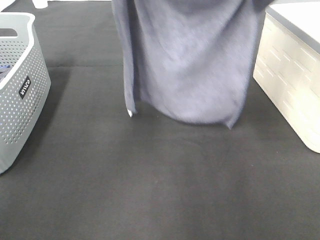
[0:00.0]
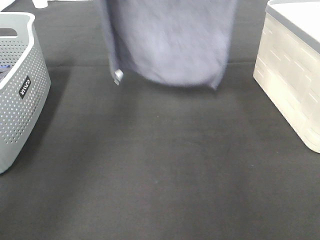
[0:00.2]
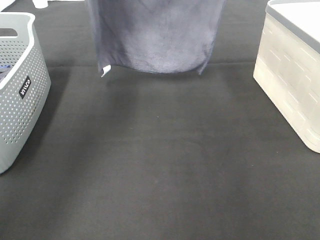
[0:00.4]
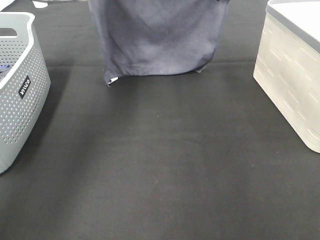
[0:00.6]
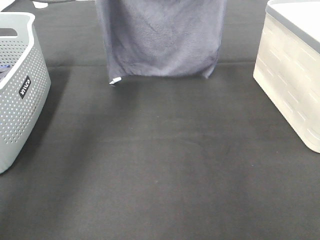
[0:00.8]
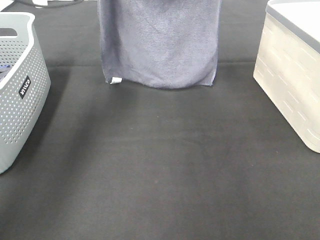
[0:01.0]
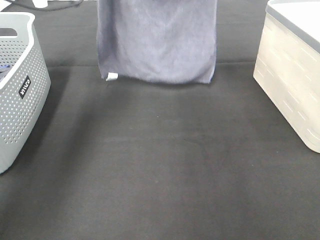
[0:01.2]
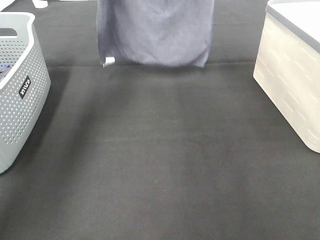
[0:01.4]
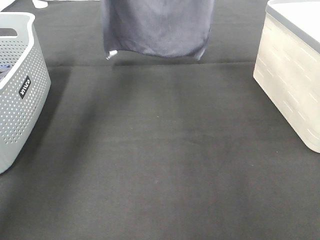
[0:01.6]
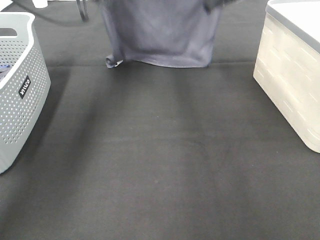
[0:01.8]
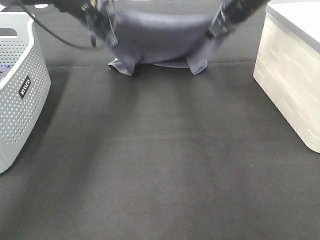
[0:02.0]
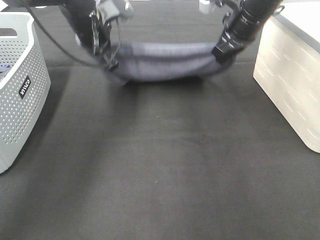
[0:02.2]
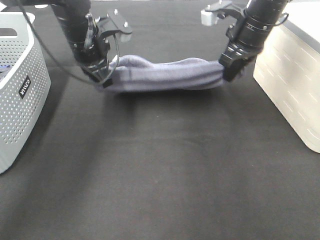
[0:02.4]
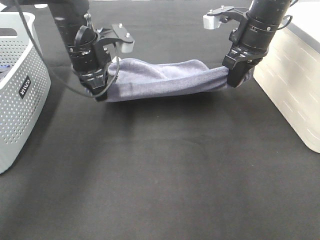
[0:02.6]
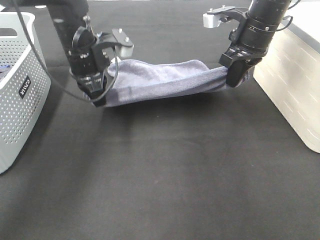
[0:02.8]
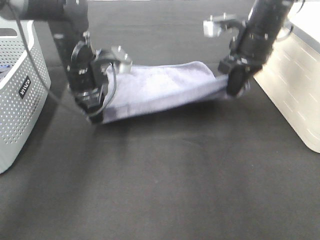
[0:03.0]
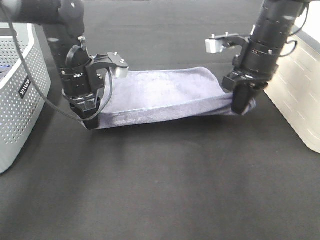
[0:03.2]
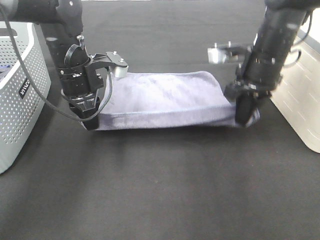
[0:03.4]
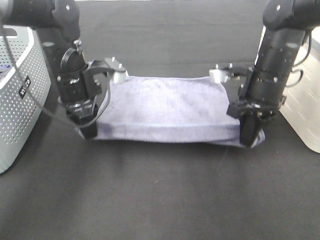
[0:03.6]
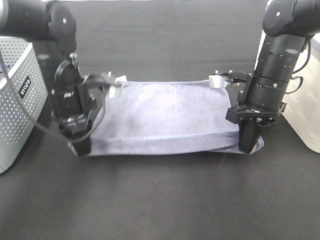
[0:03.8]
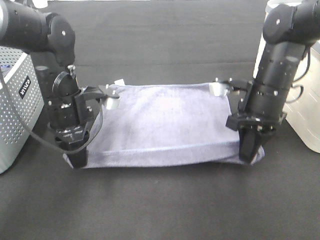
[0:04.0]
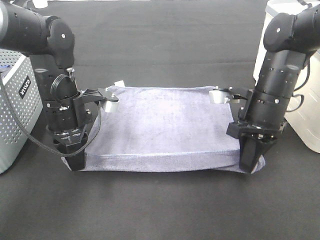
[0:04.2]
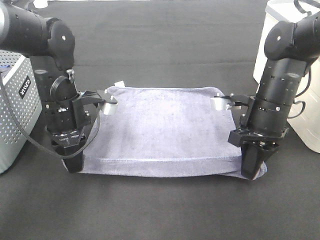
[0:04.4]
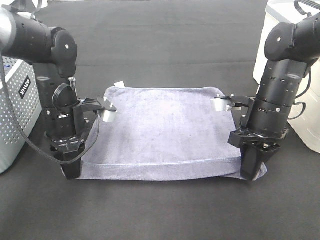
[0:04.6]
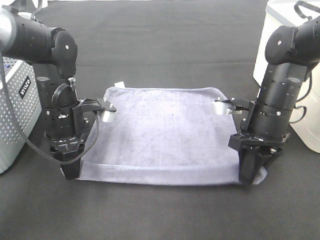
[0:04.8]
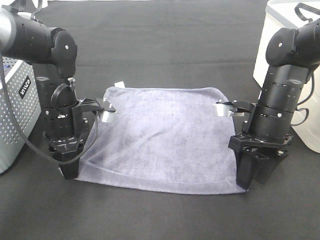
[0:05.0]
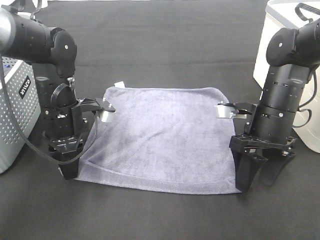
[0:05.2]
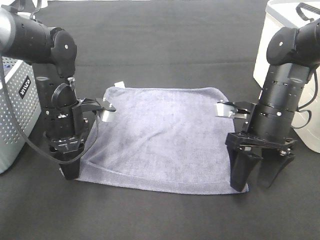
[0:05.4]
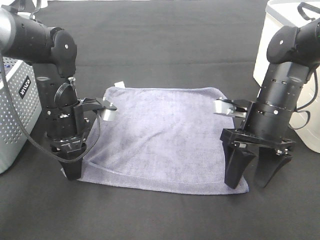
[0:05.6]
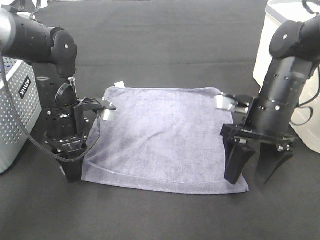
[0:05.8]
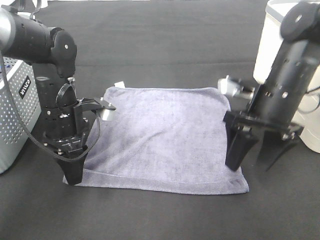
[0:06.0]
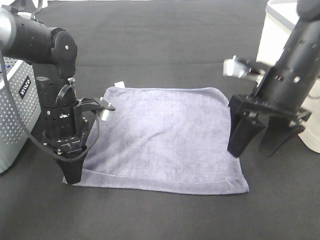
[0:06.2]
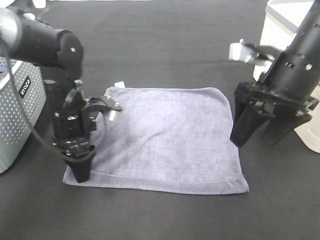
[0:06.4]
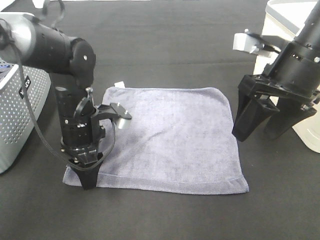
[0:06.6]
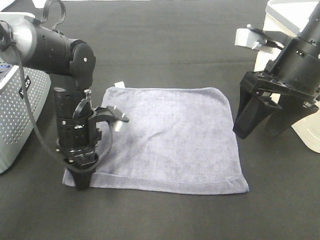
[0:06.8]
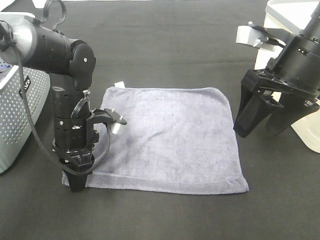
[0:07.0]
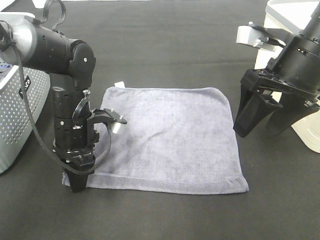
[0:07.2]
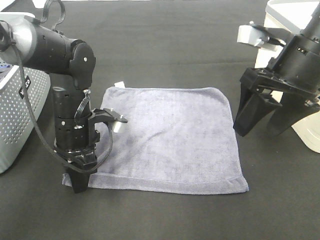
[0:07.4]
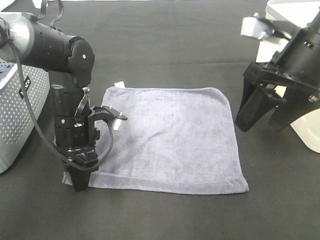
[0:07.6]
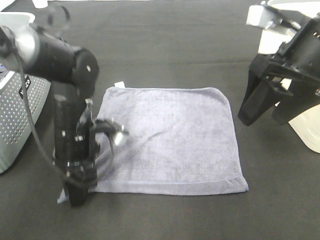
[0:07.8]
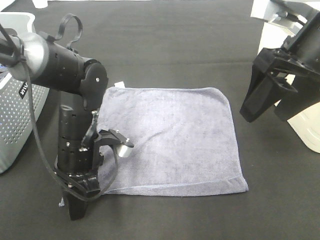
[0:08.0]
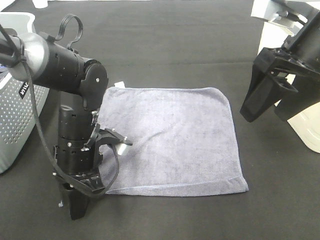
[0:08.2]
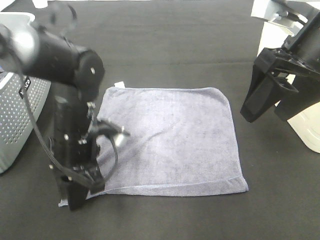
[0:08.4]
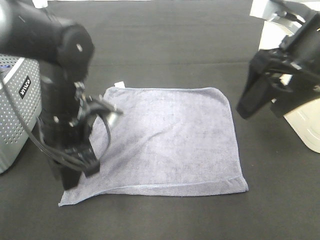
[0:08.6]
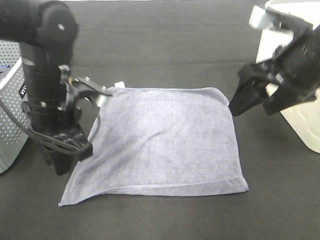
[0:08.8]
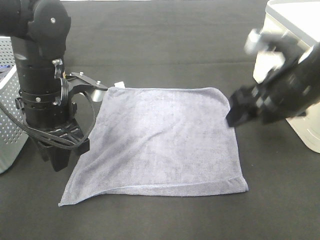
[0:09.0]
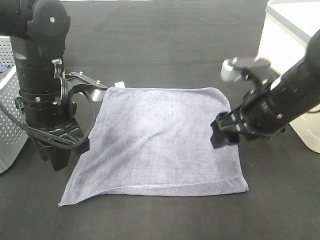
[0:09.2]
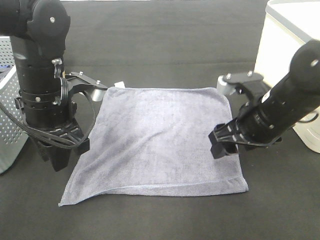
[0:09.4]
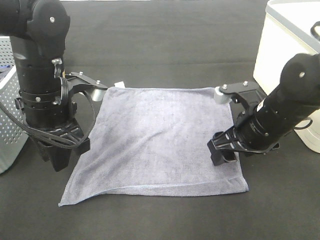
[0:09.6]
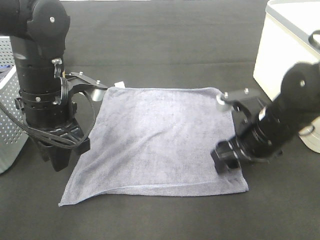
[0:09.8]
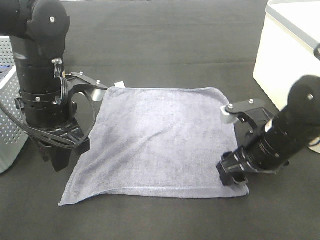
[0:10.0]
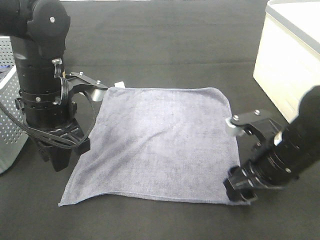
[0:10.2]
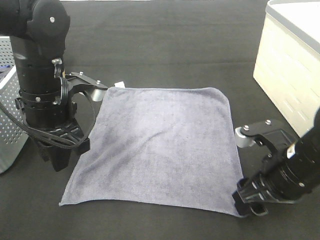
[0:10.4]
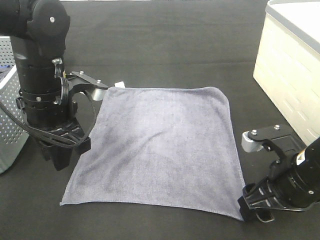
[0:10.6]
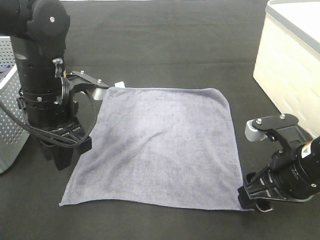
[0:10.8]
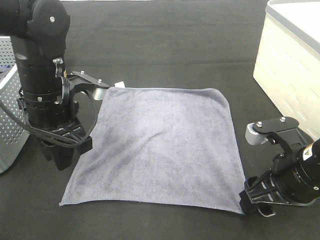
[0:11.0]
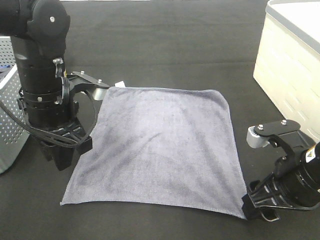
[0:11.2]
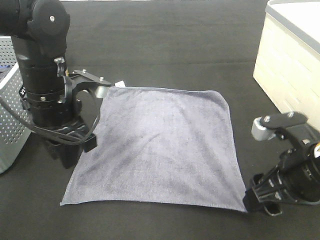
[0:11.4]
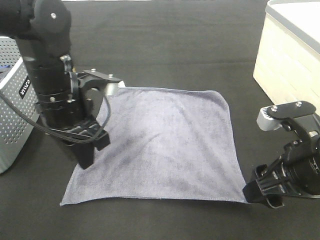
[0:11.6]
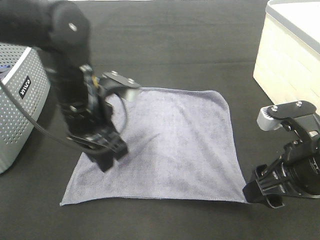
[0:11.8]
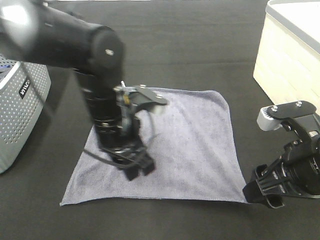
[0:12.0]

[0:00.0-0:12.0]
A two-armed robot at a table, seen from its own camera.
Task of the whole recording: Remove the towel and place it.
Step, 0:02.0 to 0:03.6: Left hand:adjust the gray towel.
Step, 0:03.8 to 0:08.6: Right hand:adjust the gray towel.
0:00.0 to 0:01.6: Both grippers move forward and downward, some 15 cm.
0:01.6 to 0:03.0: The two grippers go approximately 15 cm downward and backward.
0:03.0 to 0:04.4: The right gripper goes approximately 10 cm backward and downward; the left gripper is displaced backward by about 5 cm.
0:04.4 to 0:06.0: The left gripper opens. The right gripper moves roughly 5 cm, and opens its fingers.
0:06.0 to 0:07.6: The right gripper heads upward, covering about 10 cm.
0:07.6 to 0:09.0: The right gripper is displaced downward by about 5 cm, while the left gripper moves upward, roughly 10 cm.
0:09.0 to 0:10.4: The right gripper shifts about 10 cm downward and backward.
0:10.4 to 0:12.0: The left gripper moves to the right, approximately 10 cm. The right gripper goes roughly 5 cm upward.

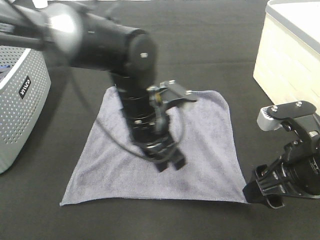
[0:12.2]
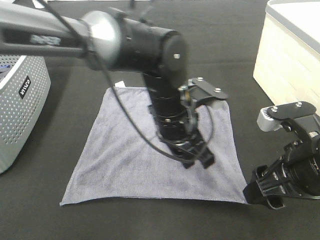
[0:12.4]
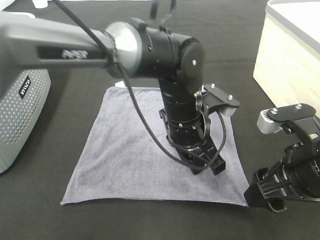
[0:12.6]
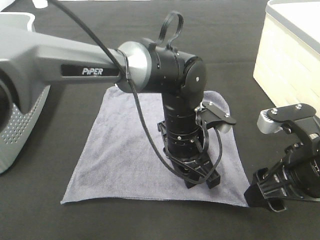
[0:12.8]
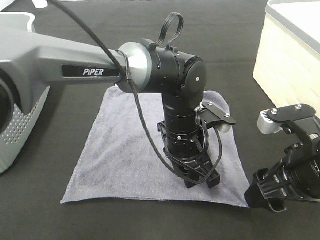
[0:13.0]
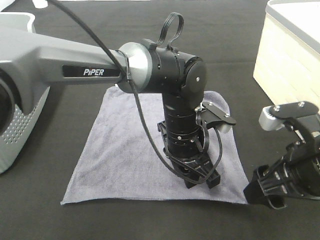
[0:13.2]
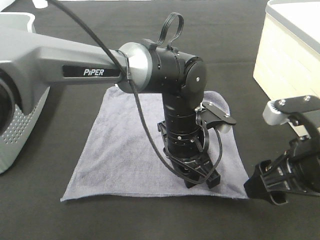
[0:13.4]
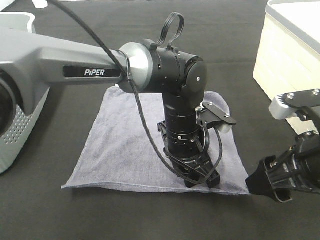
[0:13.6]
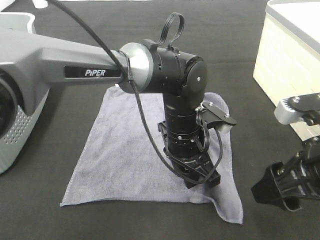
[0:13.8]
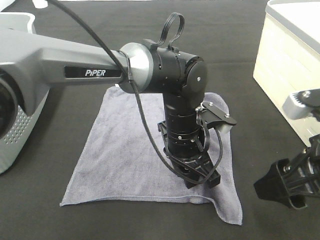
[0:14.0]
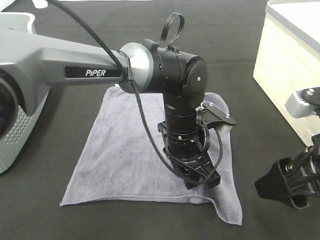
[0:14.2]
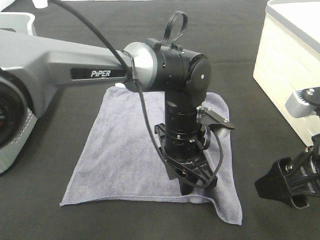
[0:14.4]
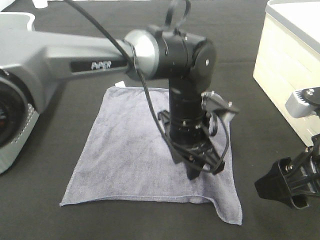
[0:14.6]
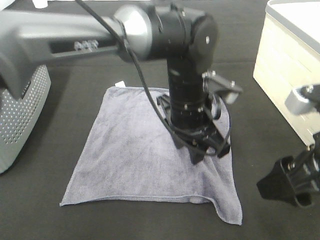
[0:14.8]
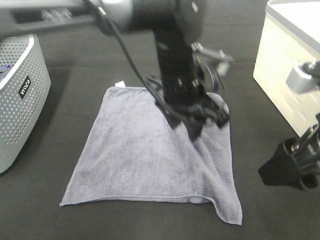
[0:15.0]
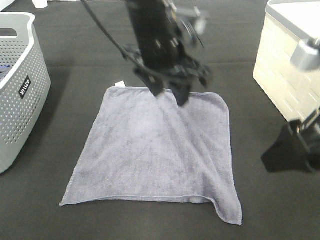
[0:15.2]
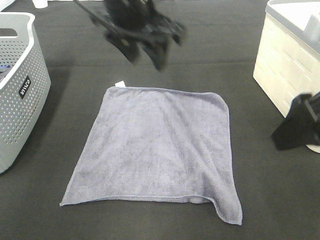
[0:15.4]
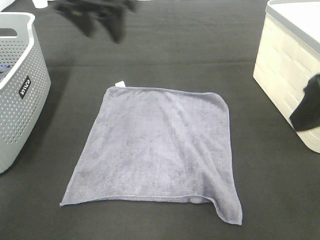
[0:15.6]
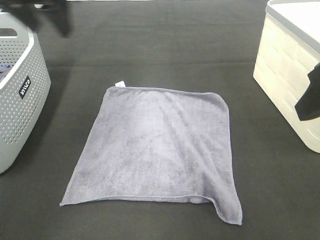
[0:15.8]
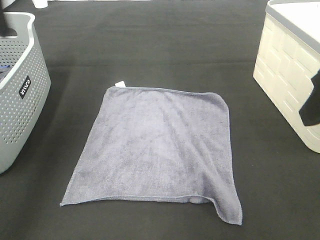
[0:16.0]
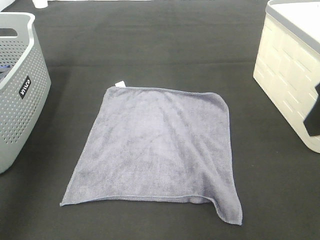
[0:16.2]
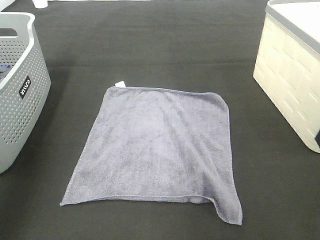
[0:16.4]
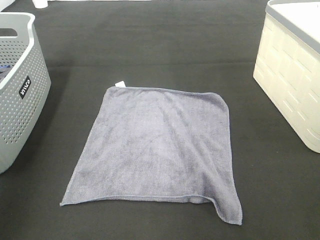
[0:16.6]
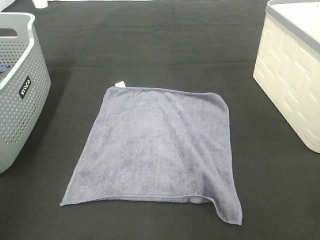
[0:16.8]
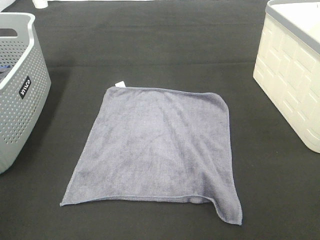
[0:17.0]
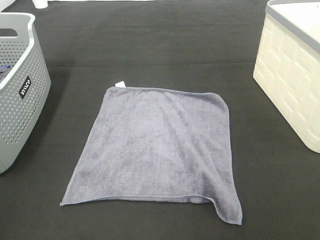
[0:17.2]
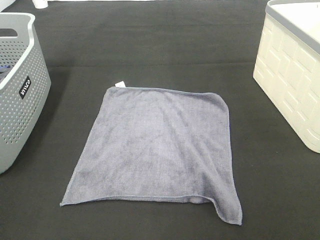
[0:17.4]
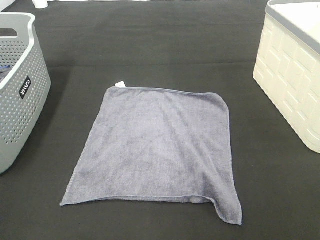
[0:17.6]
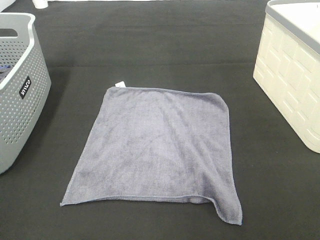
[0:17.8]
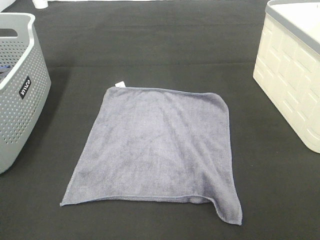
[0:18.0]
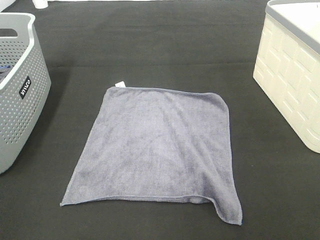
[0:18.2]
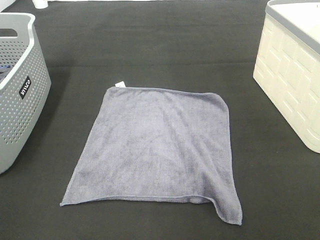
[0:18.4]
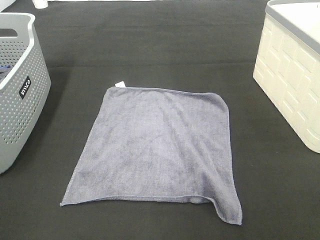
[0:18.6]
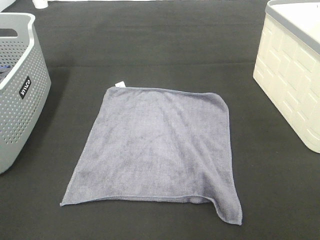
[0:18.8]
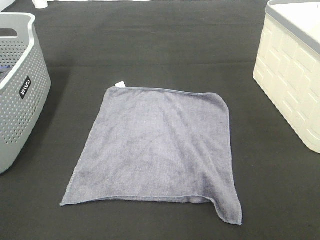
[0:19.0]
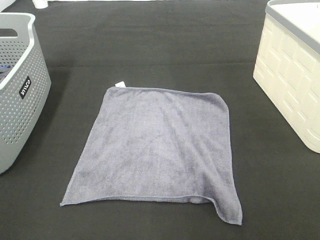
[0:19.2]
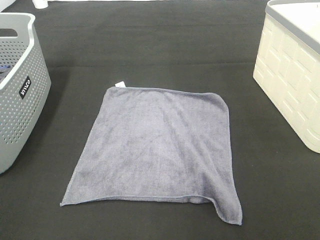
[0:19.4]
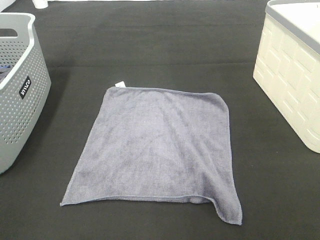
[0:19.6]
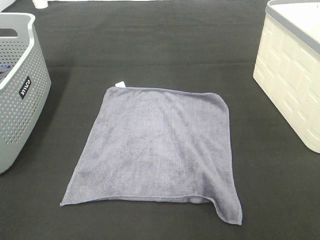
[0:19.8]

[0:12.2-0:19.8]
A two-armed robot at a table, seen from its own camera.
Task of the whole recording: Remove the towel and place it.
0:12.2 to 0:13.8: The left gripper is displaced to the right by some 5 cm.
0:13.8 to 0:15.2: The right gripper moves upward, about 5 cm, while the left gripper heads upward, covering some 15 cm.
0:15.2 to 0:16.8: The left gripper shifts approximately 40 cm to the left and backward, while the right gripper goes roughly 10 cm upward and backward.

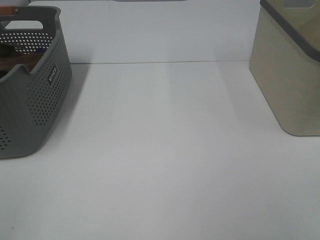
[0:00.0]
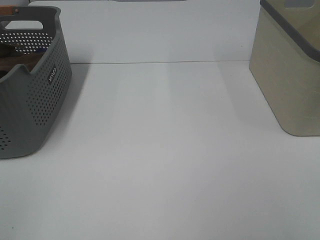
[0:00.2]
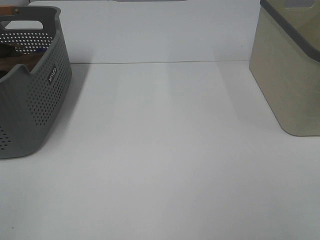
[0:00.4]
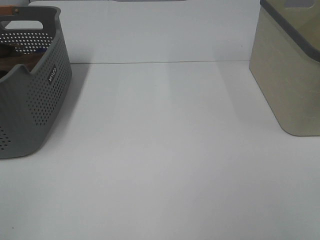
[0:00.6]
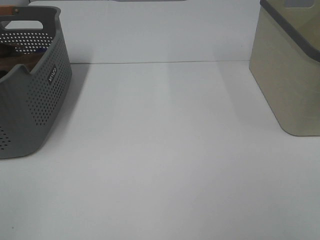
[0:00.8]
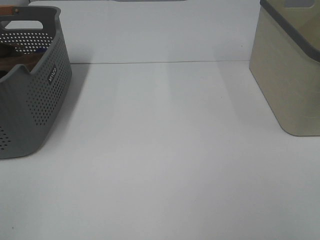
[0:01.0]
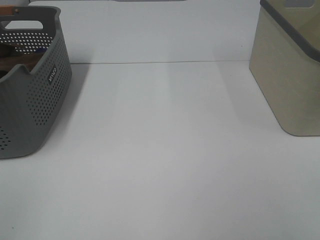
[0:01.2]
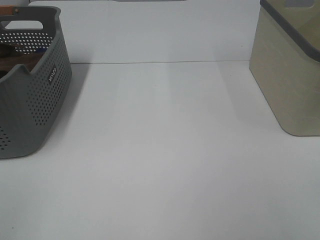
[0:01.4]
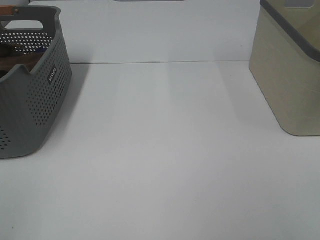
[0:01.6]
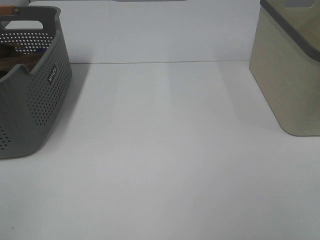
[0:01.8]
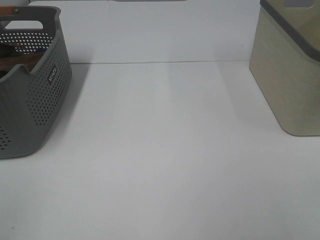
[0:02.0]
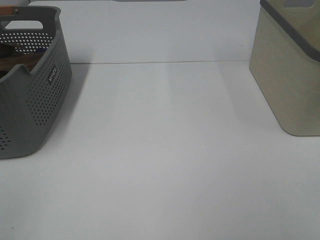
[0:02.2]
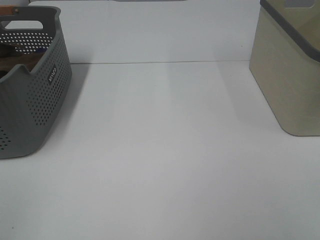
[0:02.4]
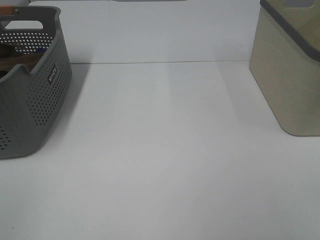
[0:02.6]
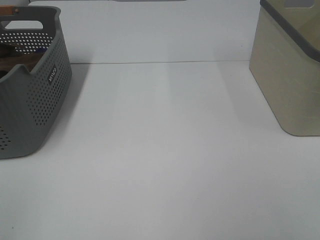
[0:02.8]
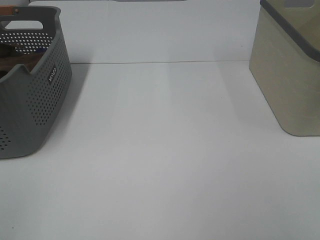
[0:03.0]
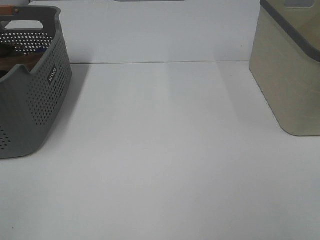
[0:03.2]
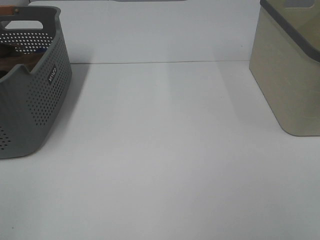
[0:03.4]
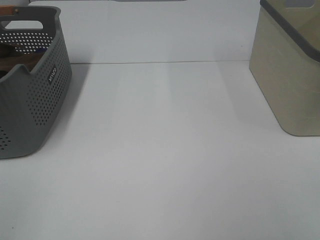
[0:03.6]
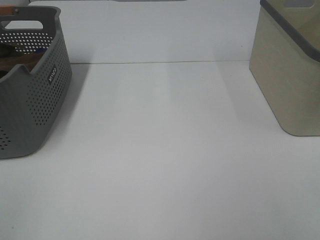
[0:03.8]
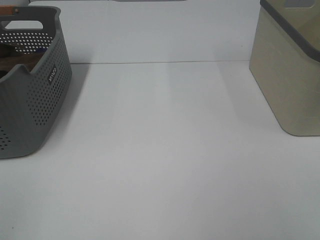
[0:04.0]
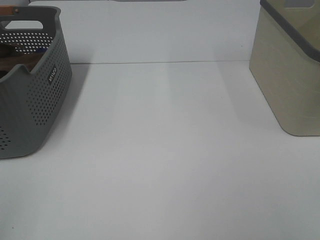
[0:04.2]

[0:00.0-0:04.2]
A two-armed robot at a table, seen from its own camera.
Task of the whole recording: Remove the towel and place it.
0:00.0 to 0:02.8: The two grippers keep their place.
